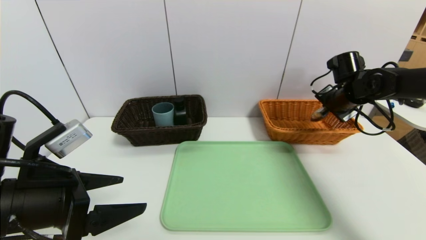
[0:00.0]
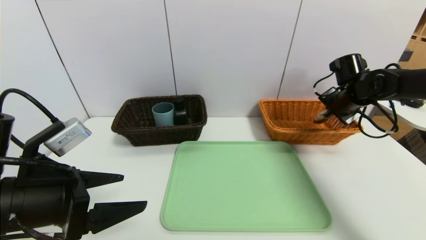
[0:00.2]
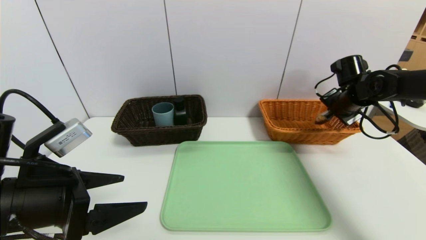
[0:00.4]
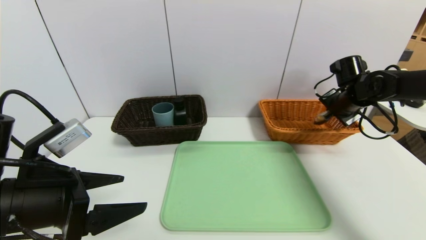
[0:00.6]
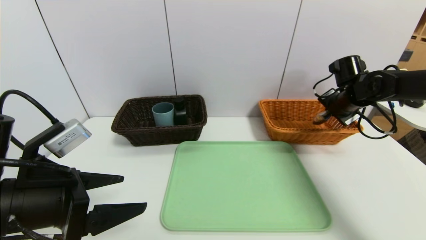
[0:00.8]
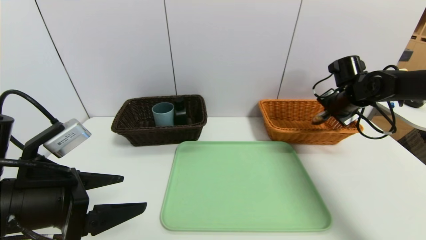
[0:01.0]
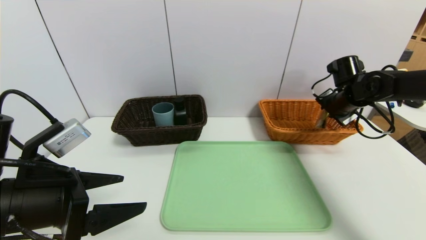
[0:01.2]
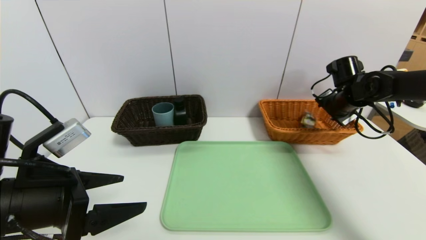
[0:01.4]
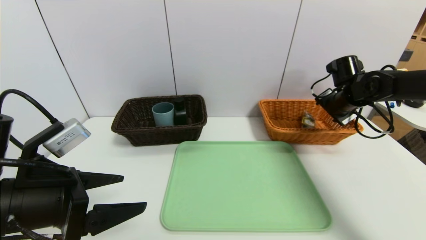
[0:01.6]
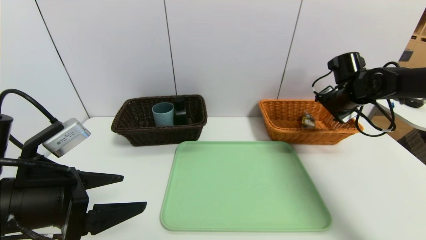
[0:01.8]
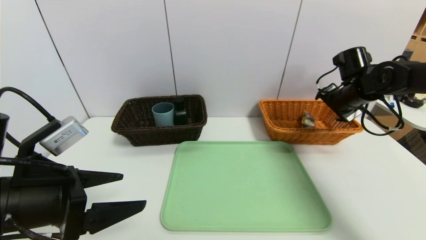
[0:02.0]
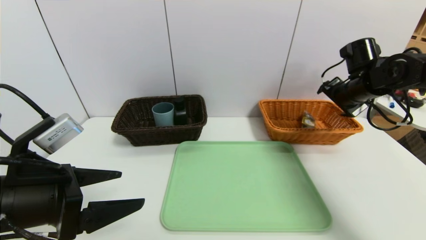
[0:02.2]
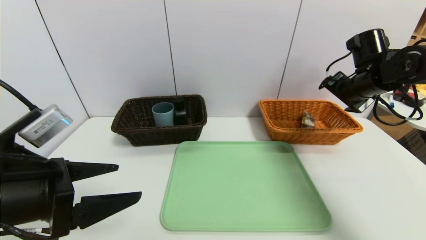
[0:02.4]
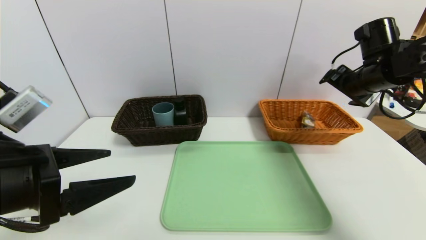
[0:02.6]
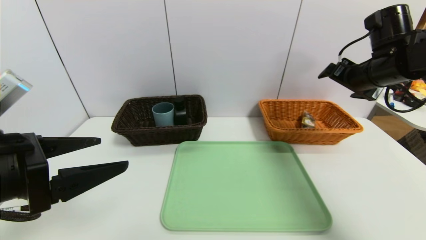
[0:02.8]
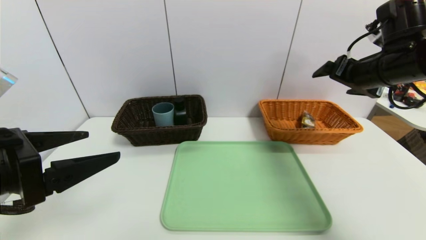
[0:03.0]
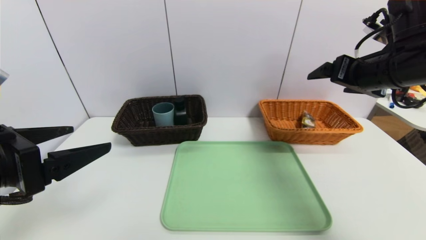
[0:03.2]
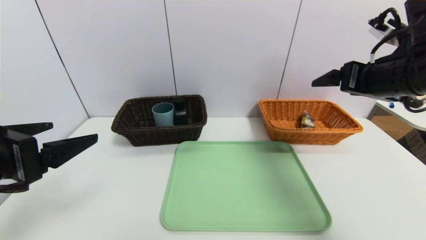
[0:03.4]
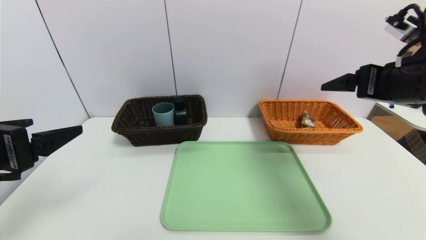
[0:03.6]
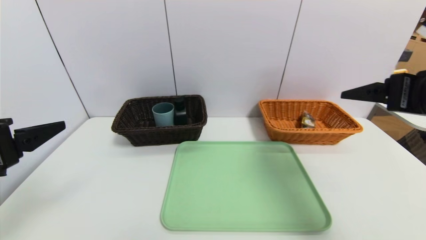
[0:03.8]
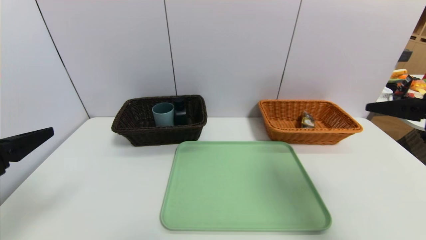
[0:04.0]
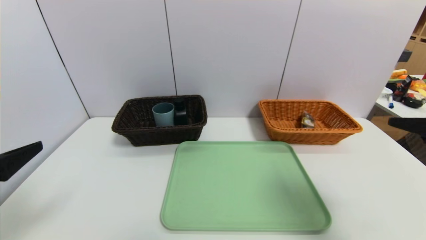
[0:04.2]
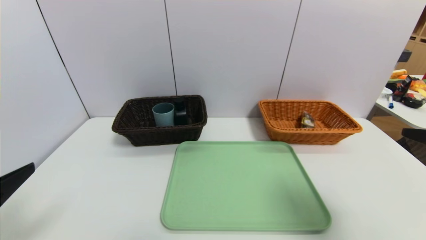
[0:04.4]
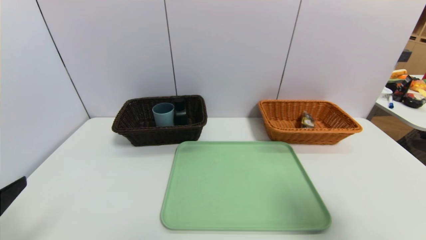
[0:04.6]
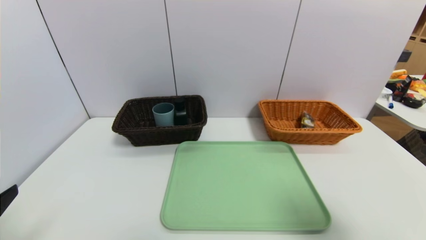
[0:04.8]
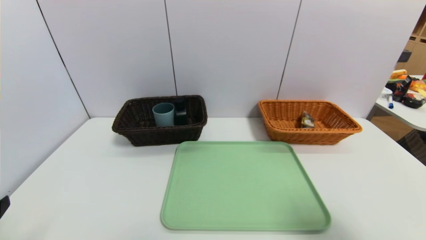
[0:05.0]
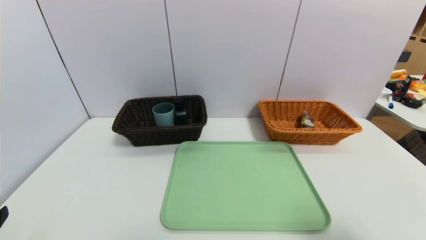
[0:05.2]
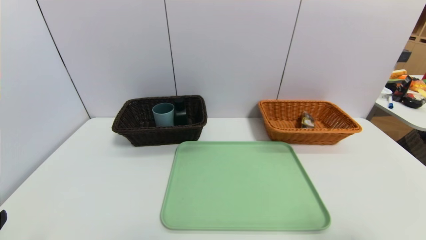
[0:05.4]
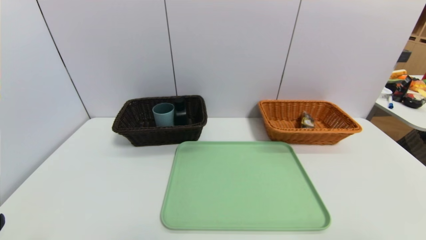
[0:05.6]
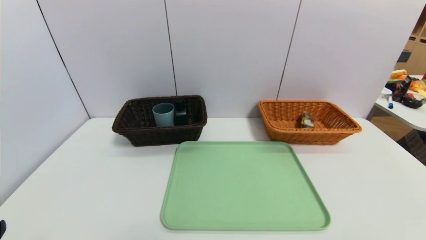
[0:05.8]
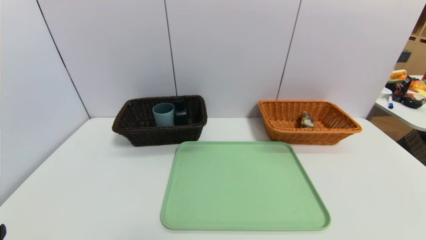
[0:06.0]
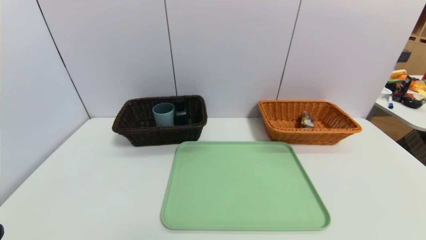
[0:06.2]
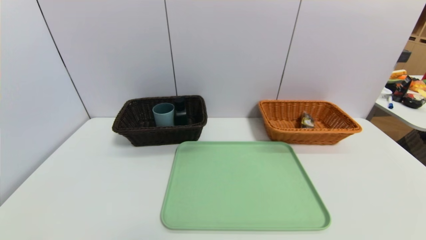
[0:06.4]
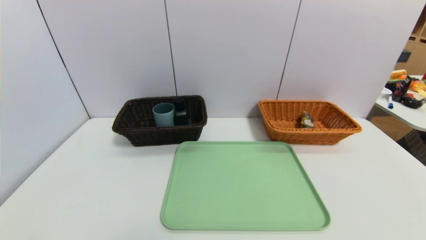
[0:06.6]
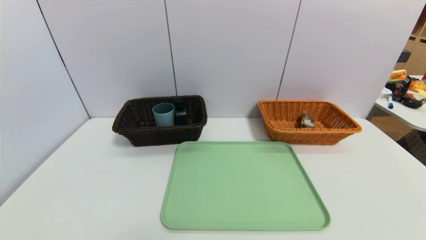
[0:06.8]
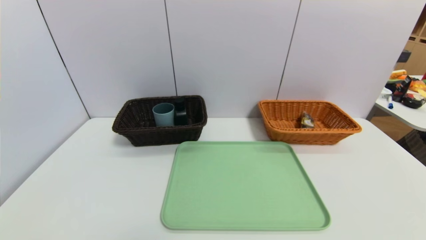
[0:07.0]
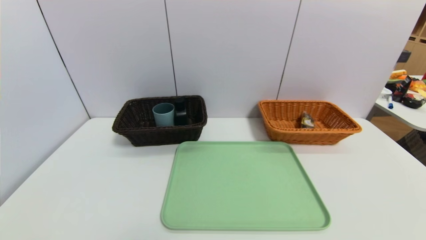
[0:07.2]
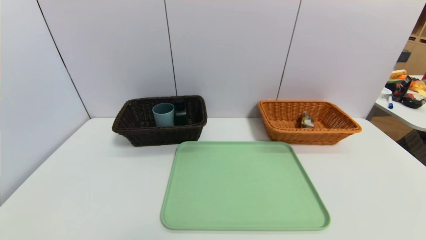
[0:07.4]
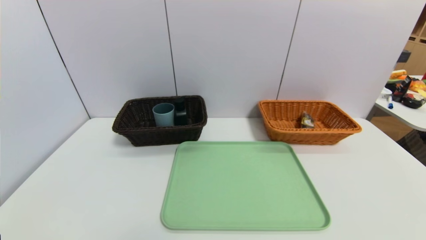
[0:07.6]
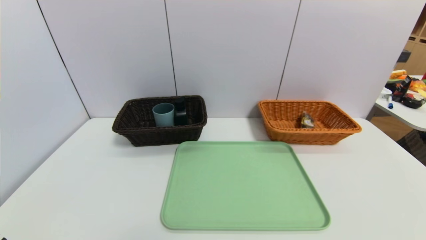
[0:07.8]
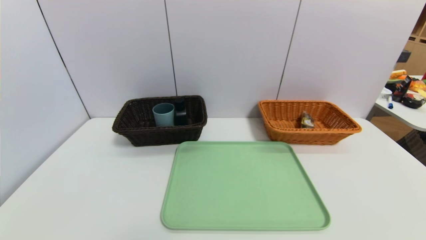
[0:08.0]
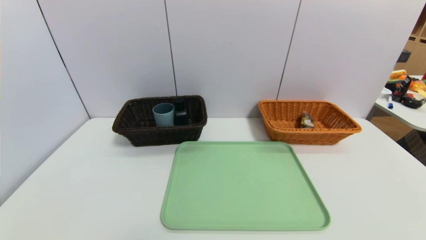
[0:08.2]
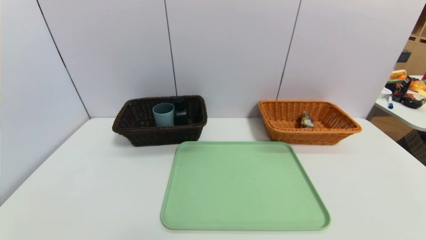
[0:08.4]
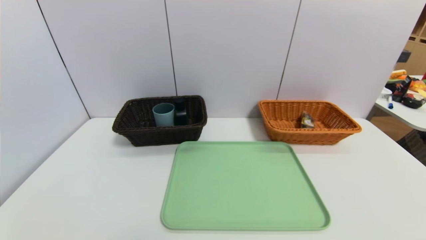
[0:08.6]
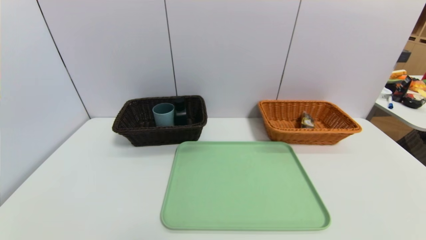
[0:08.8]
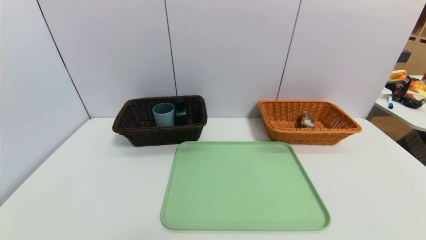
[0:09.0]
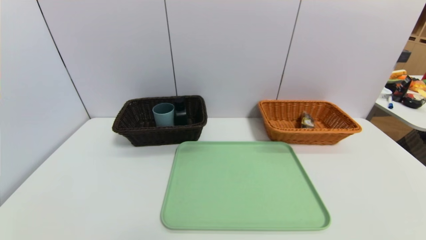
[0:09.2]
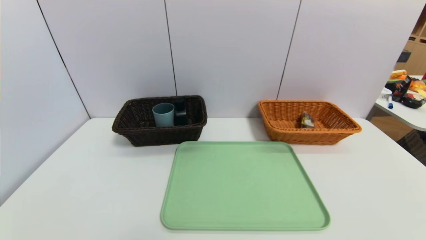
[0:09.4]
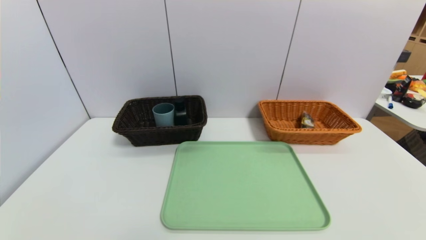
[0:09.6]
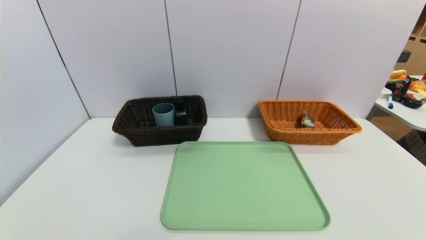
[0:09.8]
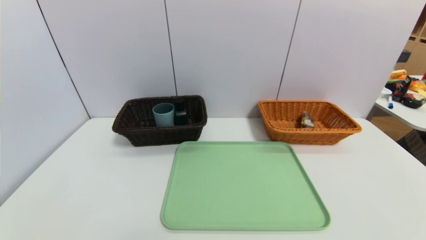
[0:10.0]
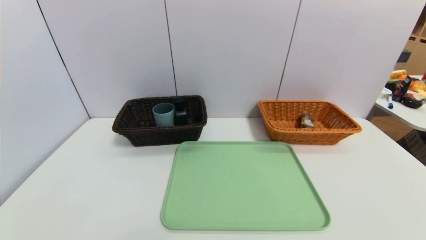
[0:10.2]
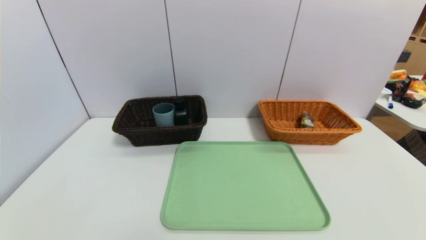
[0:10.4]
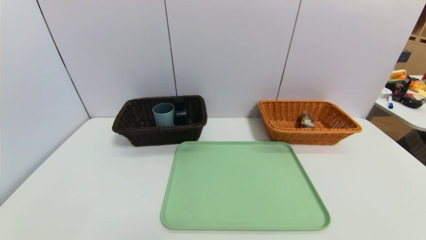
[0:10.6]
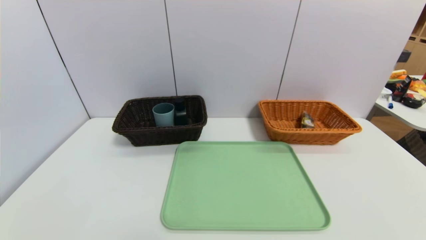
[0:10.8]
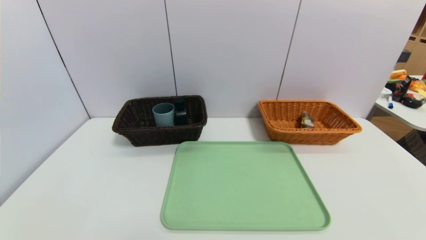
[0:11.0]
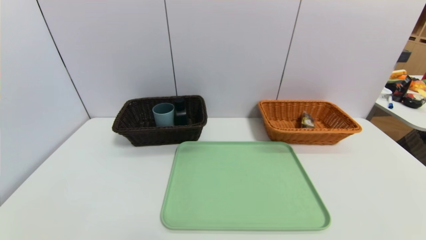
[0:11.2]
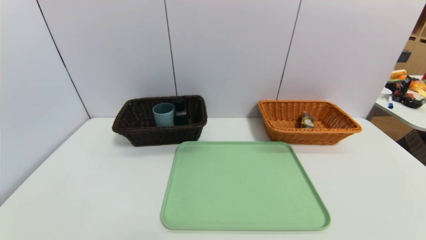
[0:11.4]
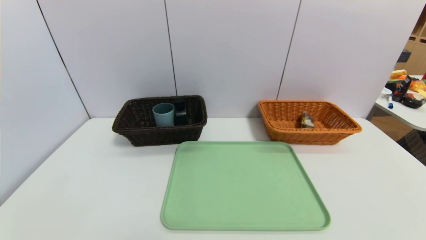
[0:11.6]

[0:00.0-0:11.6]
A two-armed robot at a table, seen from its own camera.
Task of the whole recording: place the food in the right basket with the right gripper, and place the non food items in the left basket with the left gripper.
0:00.0 to 0:01.4: The right gripper opens up.
0:01.4 to 0:02.8: The right gripper shifts some 15 cm upward and backward, and opens; the left gripper goes some 5 cm upward.
0:02.8 to 0:04.4: The right gripper moves backward, about 25 cm. The left gripper moves backward and to the left, about 10 cm.
0:04.4 to 0:05.8: Both grippers move backward and downward, some 10 cm.
0:10.2 to 0:11.6: The two grippers keep their place.

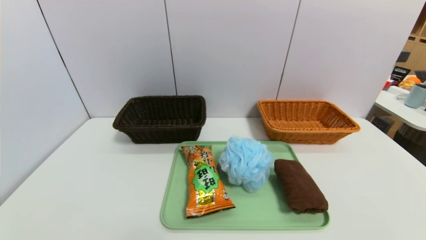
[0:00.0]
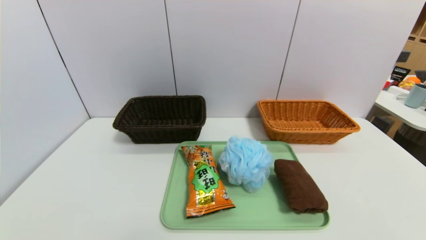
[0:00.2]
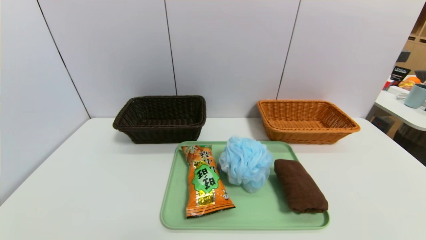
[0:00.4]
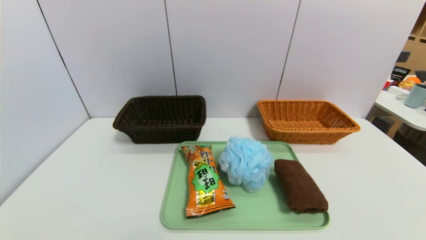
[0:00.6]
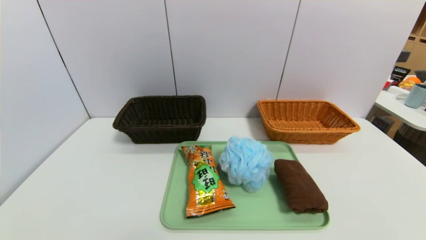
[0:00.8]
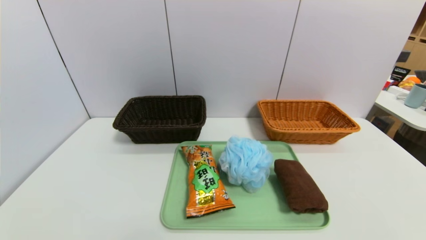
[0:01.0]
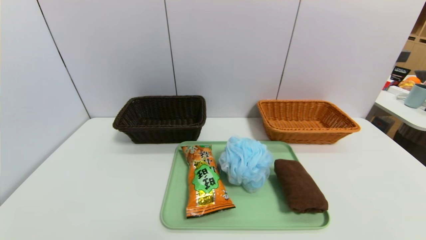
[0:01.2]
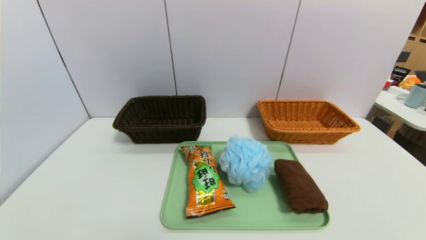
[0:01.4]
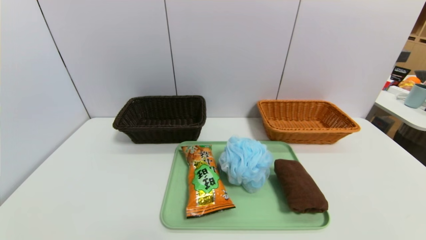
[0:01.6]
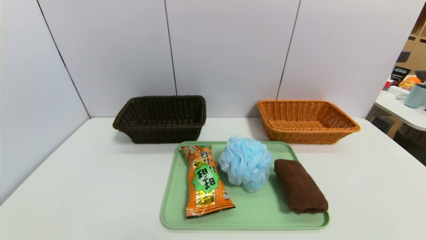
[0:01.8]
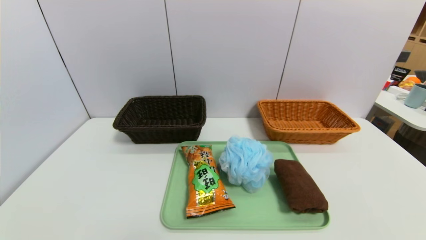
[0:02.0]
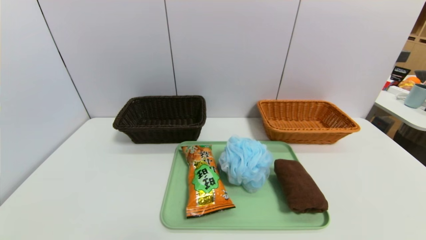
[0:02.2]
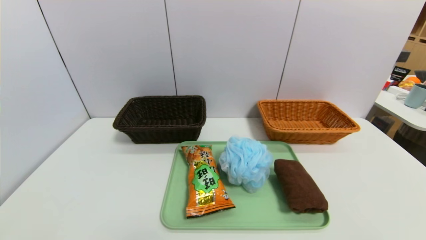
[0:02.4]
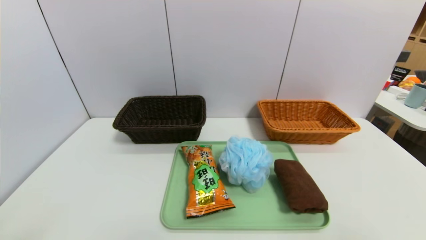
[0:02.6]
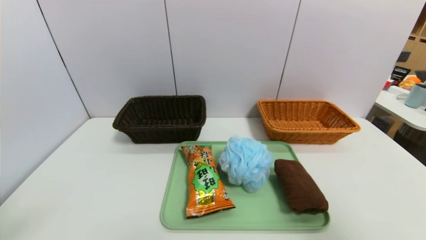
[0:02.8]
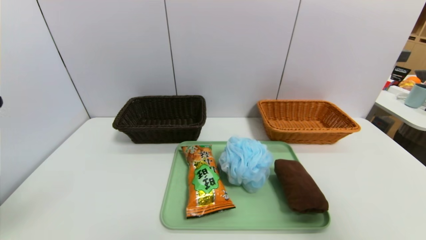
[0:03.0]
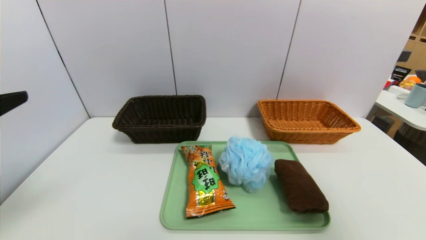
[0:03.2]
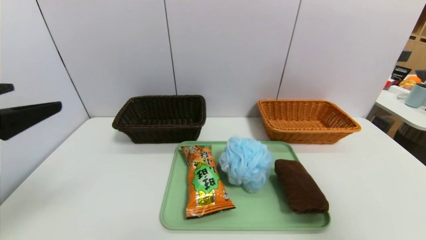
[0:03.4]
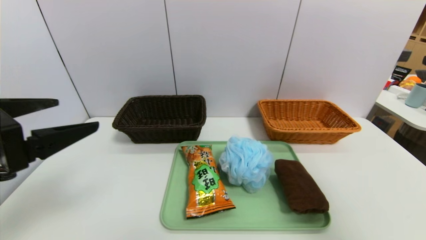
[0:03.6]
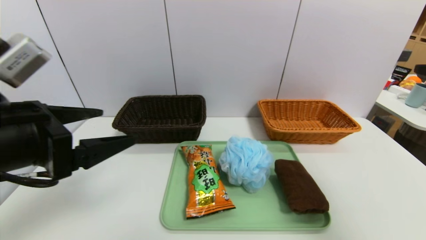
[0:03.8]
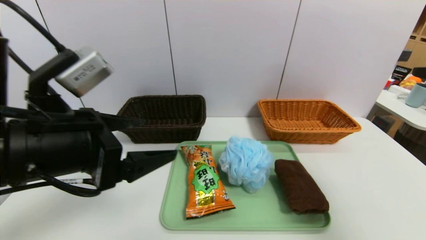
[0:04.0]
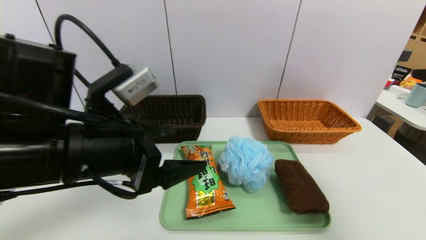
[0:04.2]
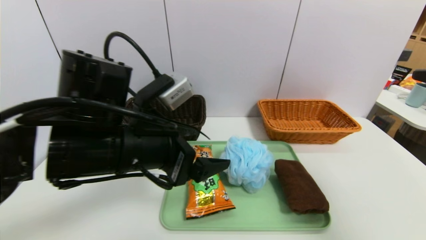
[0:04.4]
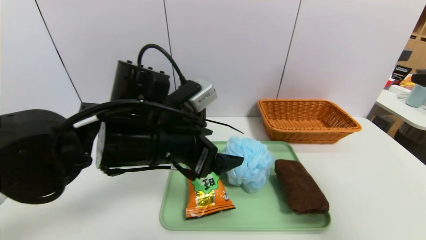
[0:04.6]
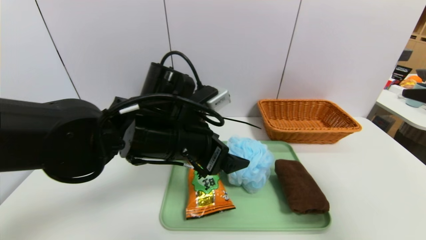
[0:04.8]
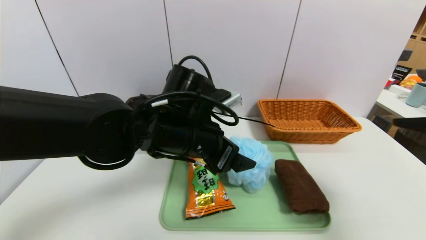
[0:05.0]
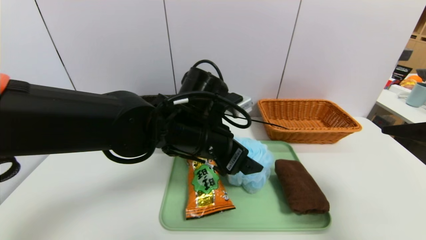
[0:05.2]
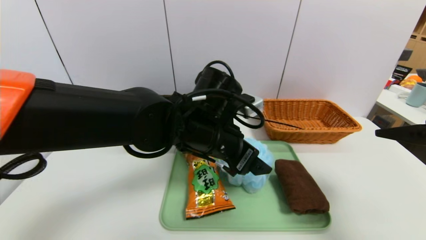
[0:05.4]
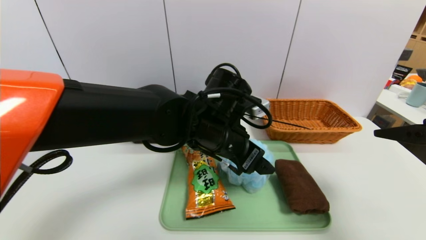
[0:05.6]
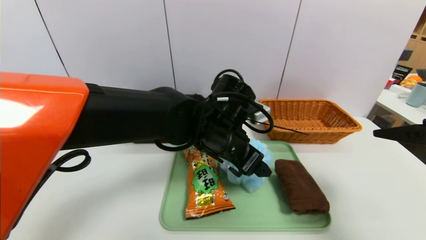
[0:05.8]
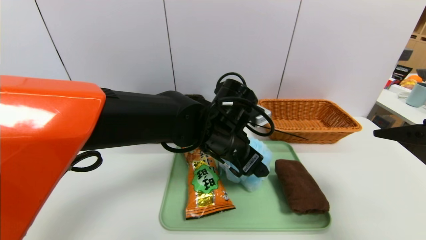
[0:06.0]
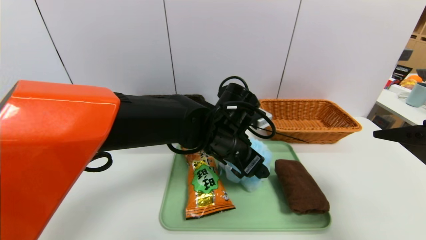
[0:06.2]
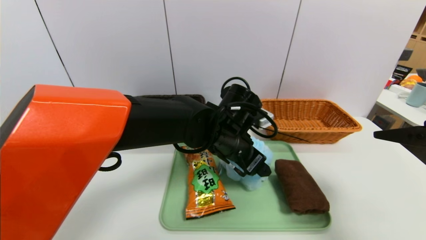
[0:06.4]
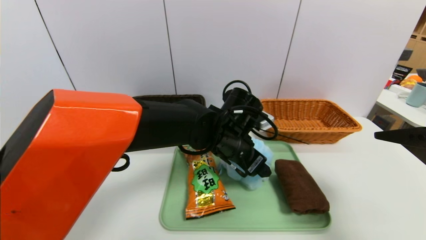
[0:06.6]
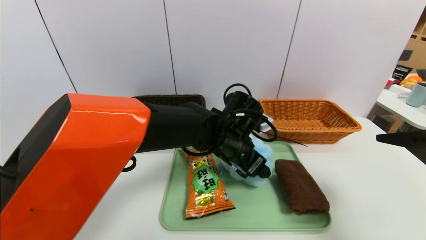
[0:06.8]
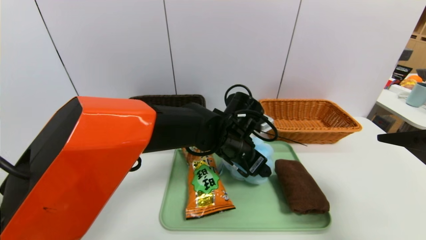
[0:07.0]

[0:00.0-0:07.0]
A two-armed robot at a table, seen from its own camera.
Task of the whole recording: place the food in the right basket with the right gripper, and place the non food items in the left basket with the left gripper.
0:00.0 to 0:01.4: The two grippers keep their place.
0:01.4 to 0:02.8: The right gripper moves upward, about 25 cm.
0:02.8 to 0:04.2: The right gripper goes roughly 10 cm forward. Meanwhile the left gripper travels to the right and forward by roughly 20 cm.
0:04.2 to 0:05.6: The right gripper heads downward, covering approximately 5 cm. Meanwhile the left gripper travels to the right and forward by roughly 20 cm.
0:05.6 to 0:07.0: The left gripper heads downward, covering some 5 cm.
